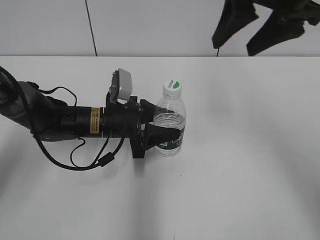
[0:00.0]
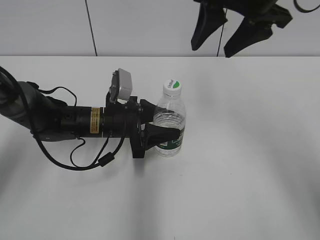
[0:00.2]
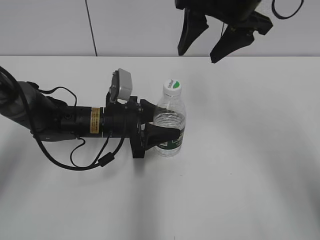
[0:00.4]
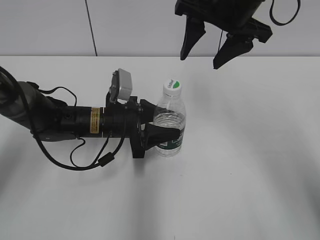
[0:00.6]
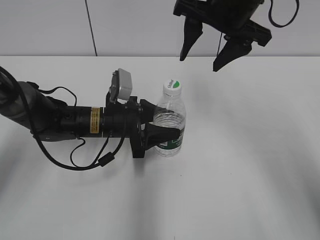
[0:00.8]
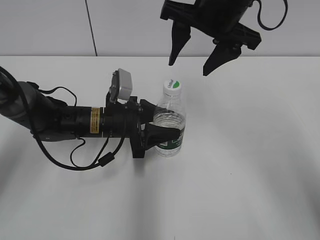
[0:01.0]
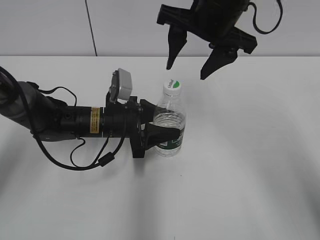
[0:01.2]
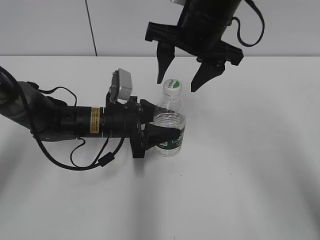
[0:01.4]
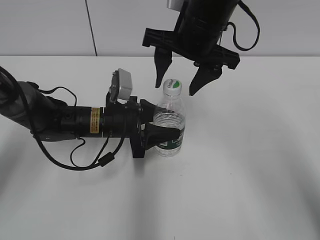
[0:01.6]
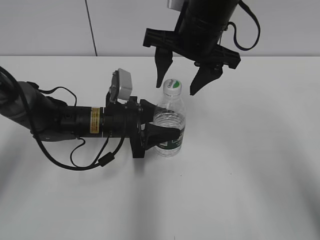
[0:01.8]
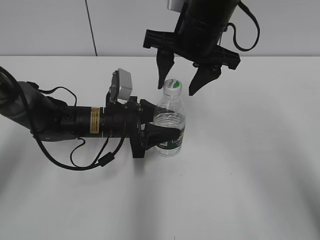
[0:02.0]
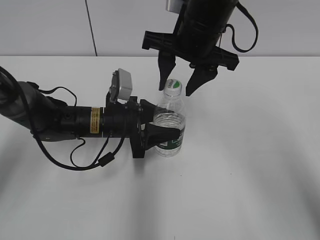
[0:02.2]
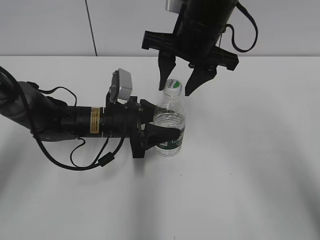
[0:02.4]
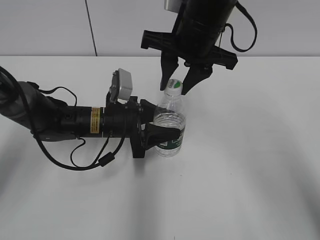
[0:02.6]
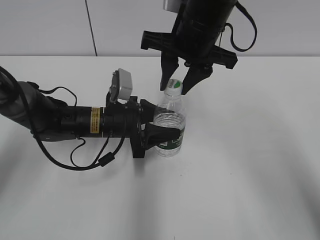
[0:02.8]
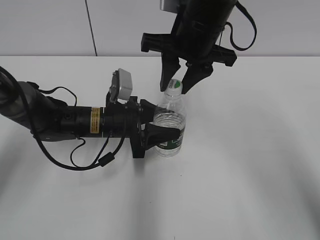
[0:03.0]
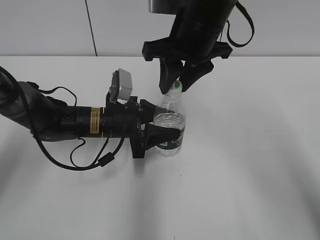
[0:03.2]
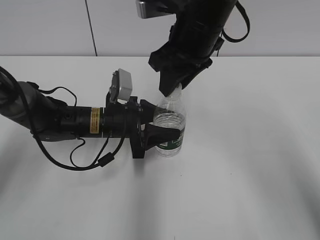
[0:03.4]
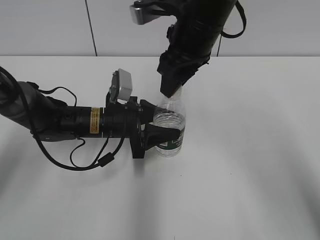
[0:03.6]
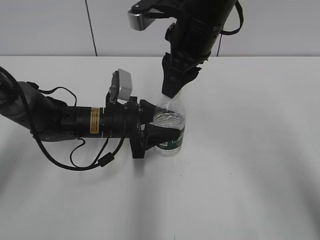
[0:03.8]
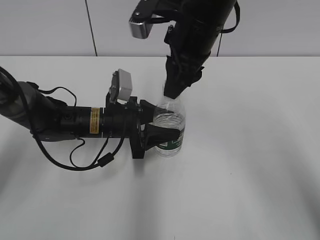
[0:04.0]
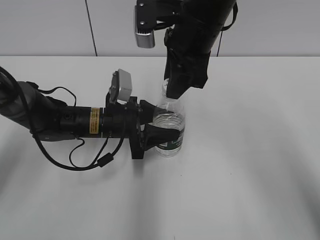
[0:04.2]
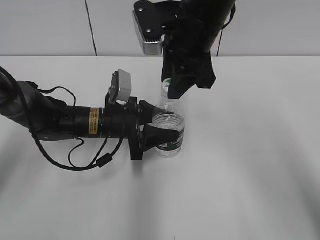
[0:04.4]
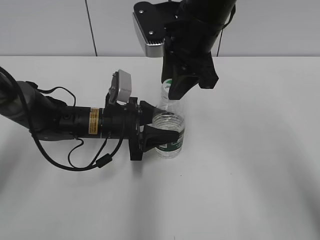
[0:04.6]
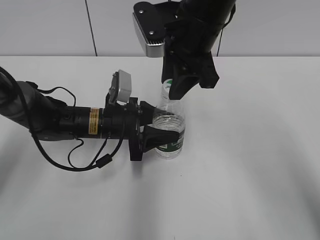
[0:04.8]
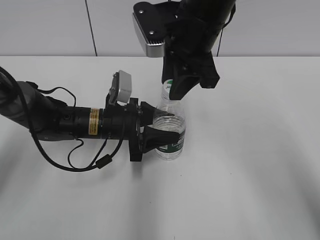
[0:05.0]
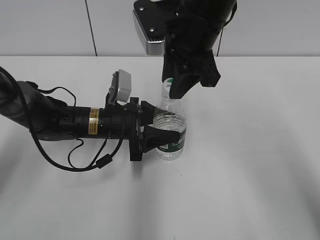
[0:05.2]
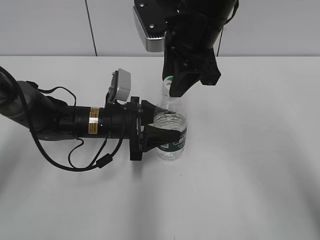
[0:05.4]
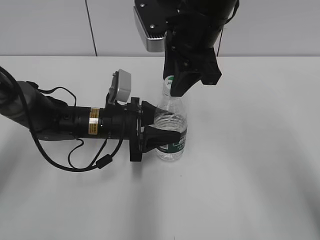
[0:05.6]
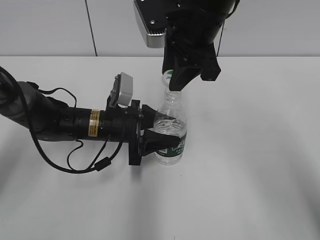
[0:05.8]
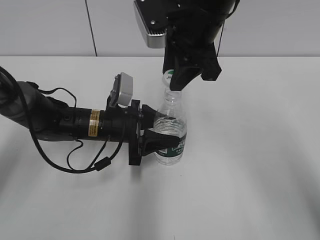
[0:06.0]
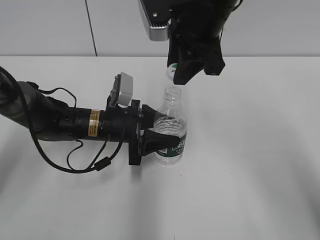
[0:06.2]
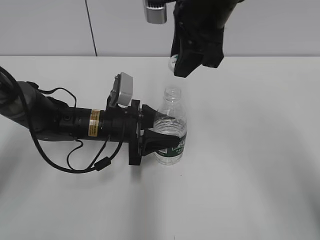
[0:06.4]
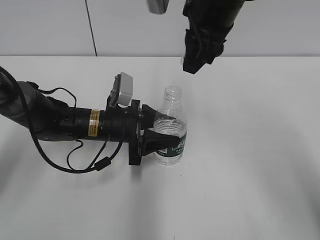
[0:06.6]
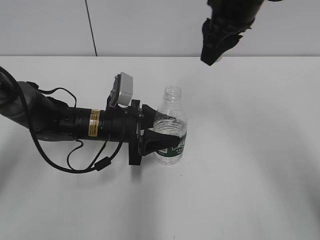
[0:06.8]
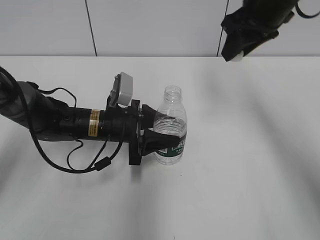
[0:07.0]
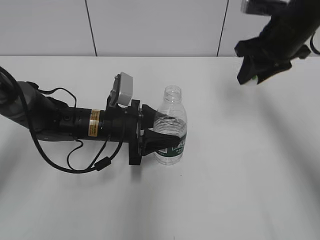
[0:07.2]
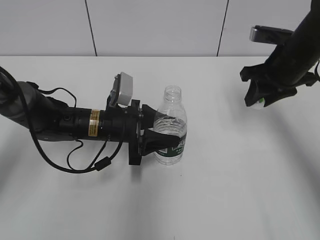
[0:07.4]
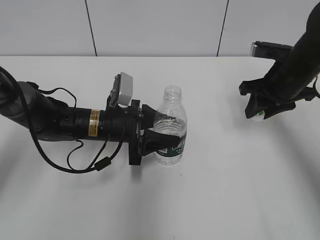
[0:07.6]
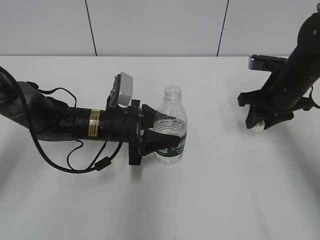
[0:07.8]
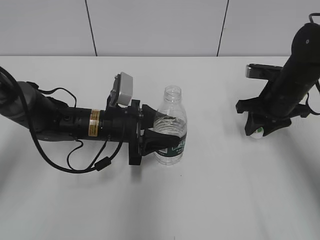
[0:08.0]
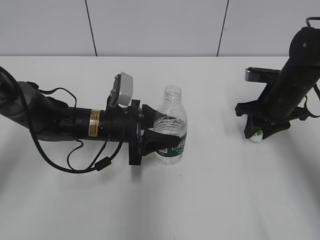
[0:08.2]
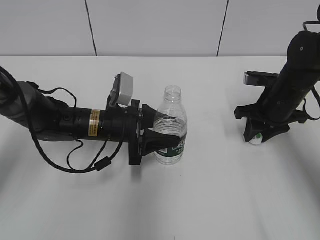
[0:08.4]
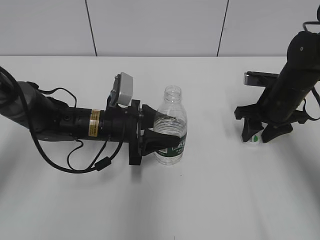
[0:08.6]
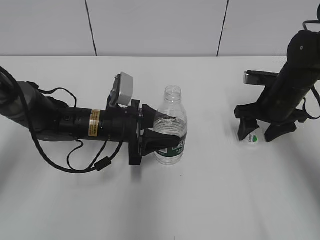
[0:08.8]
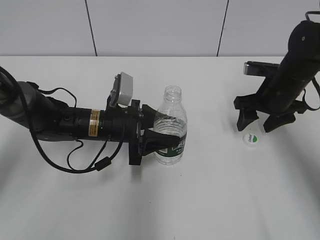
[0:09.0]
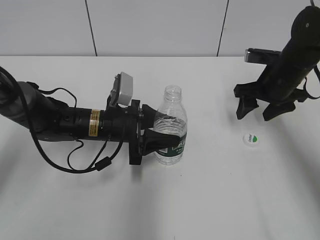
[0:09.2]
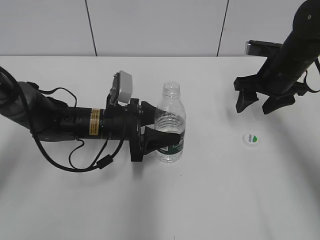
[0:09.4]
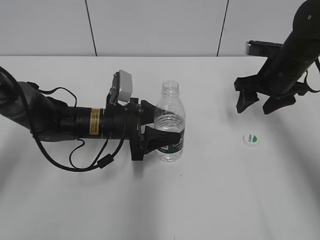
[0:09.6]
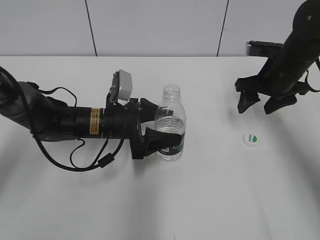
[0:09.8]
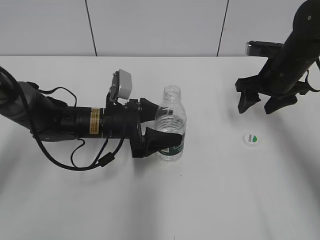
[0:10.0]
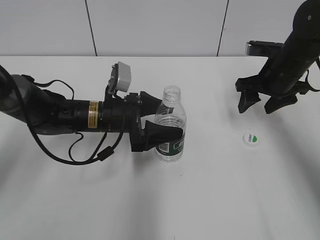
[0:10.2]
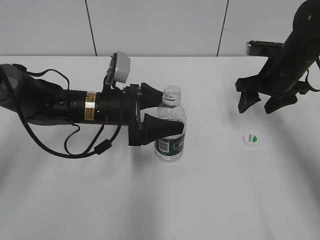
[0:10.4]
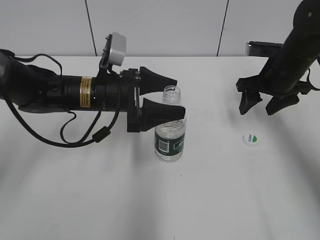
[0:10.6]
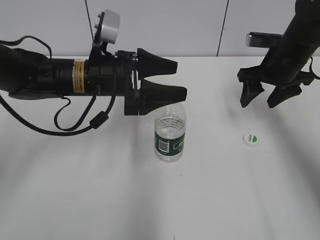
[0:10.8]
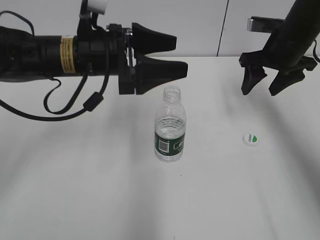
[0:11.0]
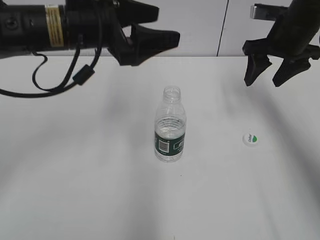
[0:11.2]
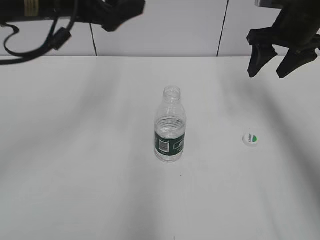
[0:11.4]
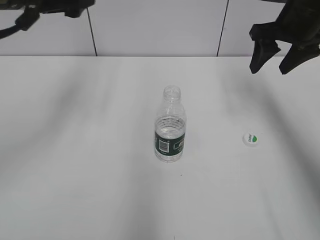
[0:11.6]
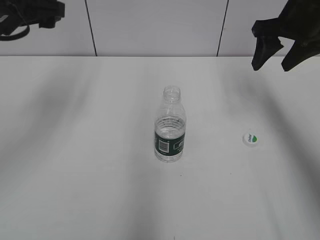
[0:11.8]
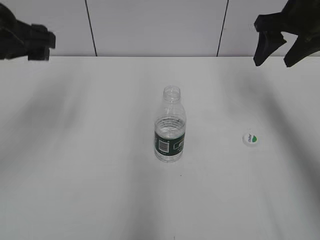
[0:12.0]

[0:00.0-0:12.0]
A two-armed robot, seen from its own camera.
Step, 0:00.0 to 0:06.4: Unscrew the bottle cap with the right gripper while holding the bottle with the left gripper.
Step, 0:06.6 to 0:09.0: Place the bottle cap on the table with the right gripper.
Step, 0:09.4 to 0:11.0: Place the bottle on the table with the left gripper.
0:00.0 to 0:01.6: The right gripper heads to the left and downward, covering approximately 10 cm.
0:01.6 to 0:03.0: The right gripper closes.
0:04.4 to 0:06.0: The grippers make only small movements.
0:06.0 to 0:07.6: The right gripper shifts roughly 20 cm to the right and downward.
0:07.6 to 0:09.0: The right gripper ends up roughly 5 cm from where it was, and opens up.
0:09.0 to 0:10.4: The left gripper opens up.
0:10.4 to 0:12.0: The left gripper moves upward and to the left, about 20 cm. The right gripper shifts roughly 15 cm upward.

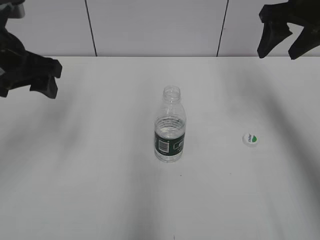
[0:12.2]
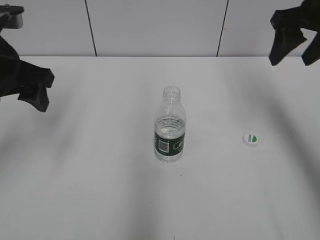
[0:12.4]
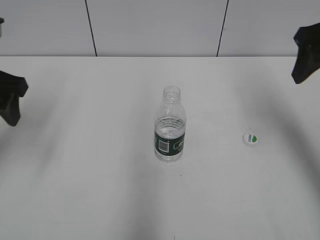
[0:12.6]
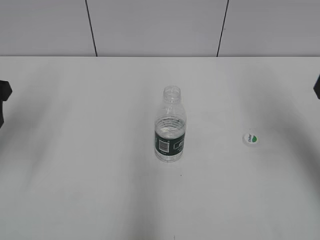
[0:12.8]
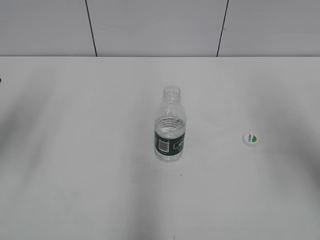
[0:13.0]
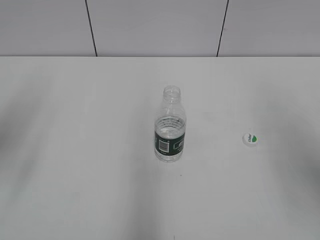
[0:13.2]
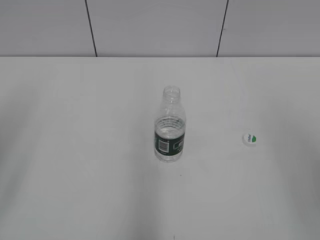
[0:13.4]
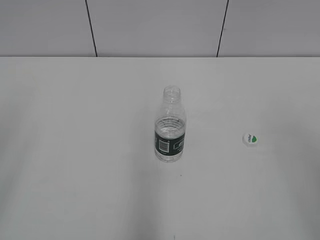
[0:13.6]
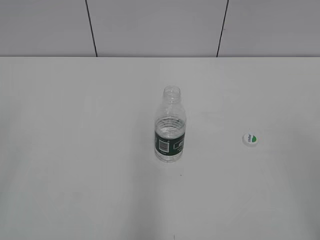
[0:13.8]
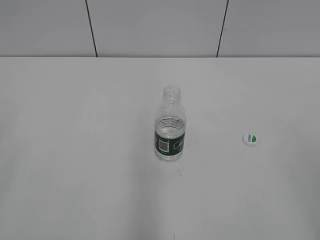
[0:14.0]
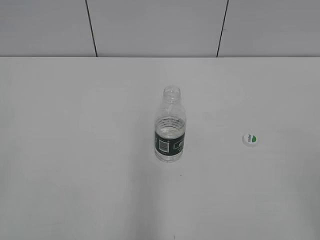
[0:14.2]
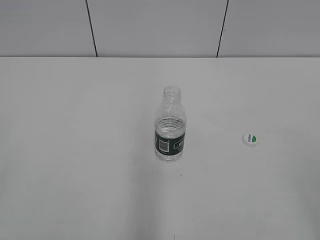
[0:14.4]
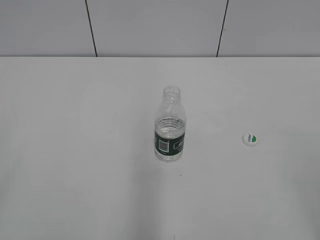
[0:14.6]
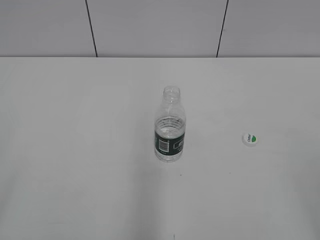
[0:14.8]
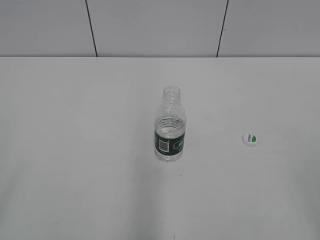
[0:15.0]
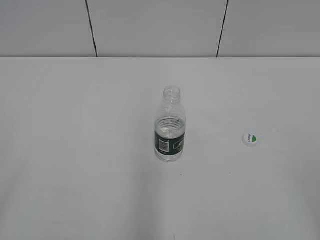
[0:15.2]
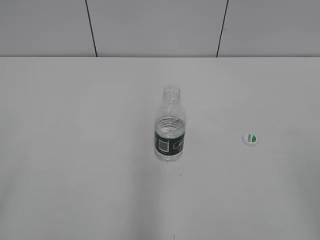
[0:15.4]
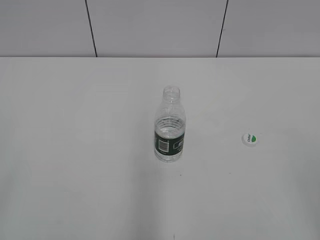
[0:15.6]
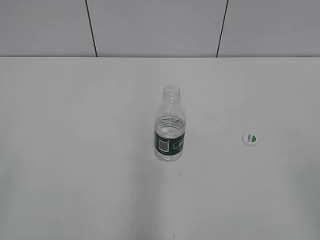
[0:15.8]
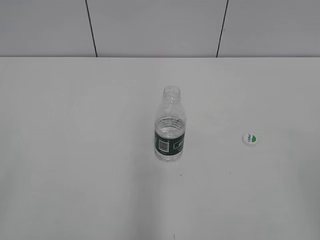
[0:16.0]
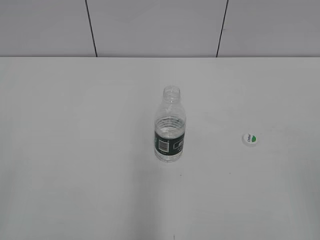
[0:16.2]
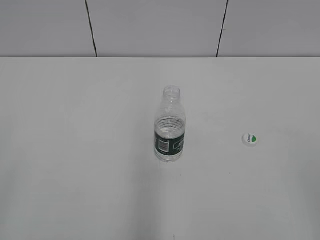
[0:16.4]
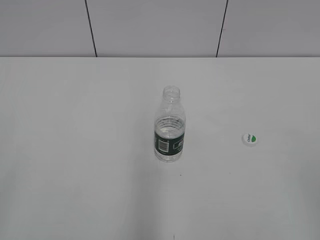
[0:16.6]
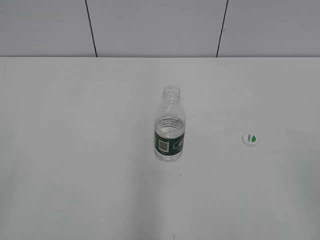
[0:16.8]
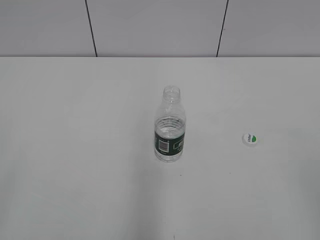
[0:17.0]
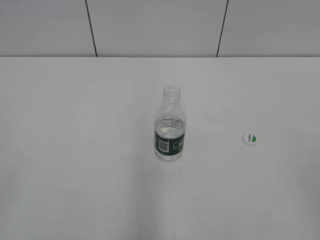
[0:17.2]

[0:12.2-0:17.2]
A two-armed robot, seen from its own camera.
0:12.2 to 0:13.8: The right gripper heads backward, covering about 35 cm; the left gripper moves backward, some 25 cm.
